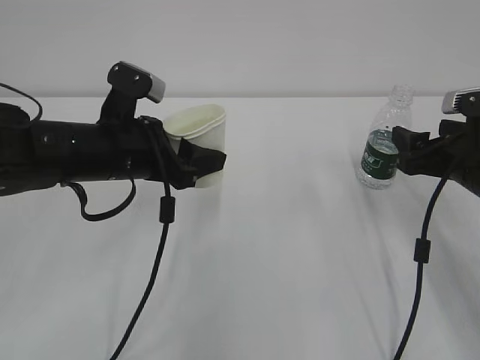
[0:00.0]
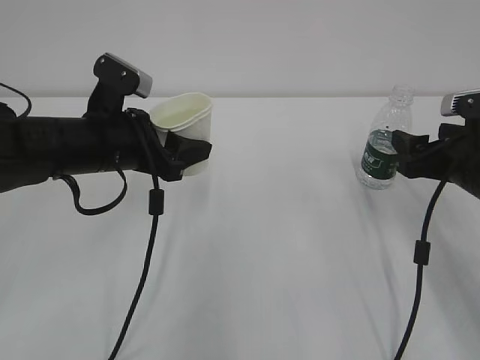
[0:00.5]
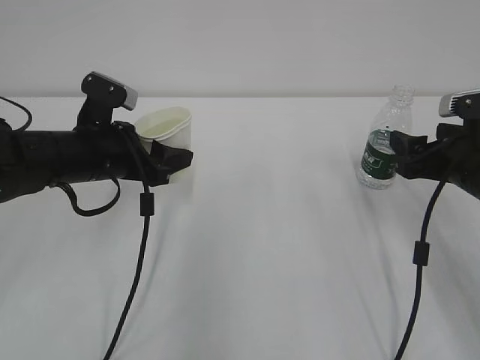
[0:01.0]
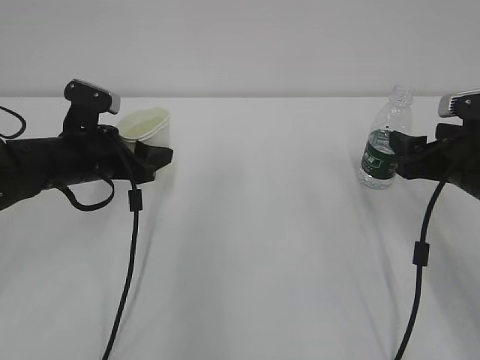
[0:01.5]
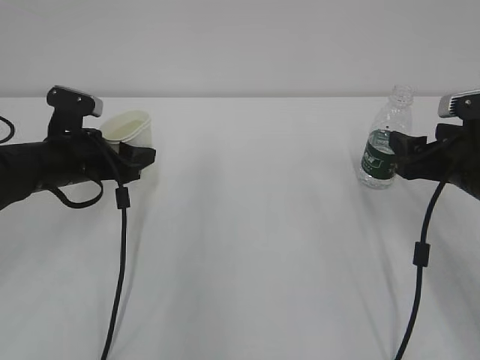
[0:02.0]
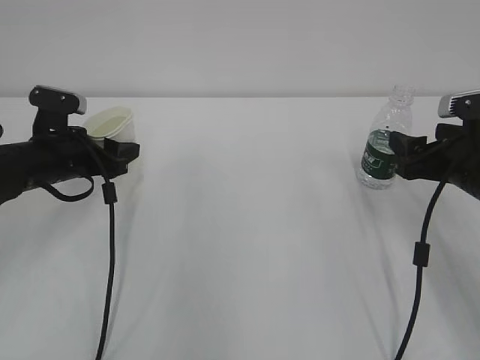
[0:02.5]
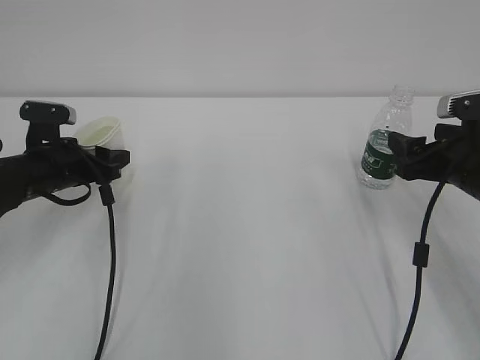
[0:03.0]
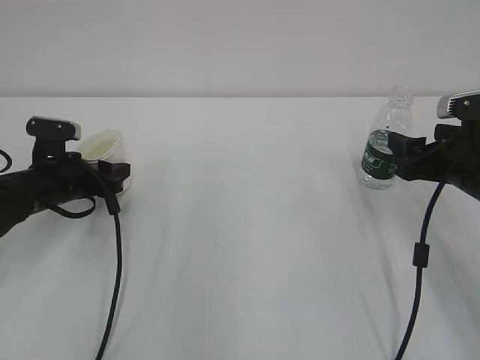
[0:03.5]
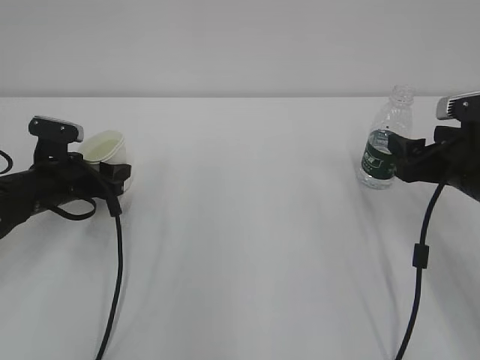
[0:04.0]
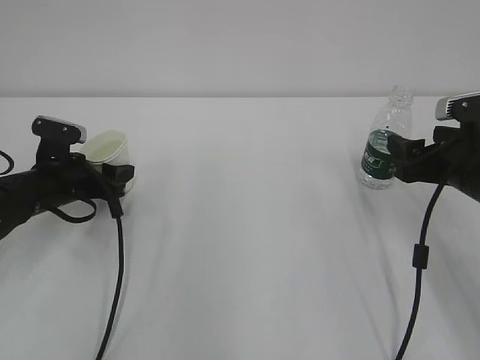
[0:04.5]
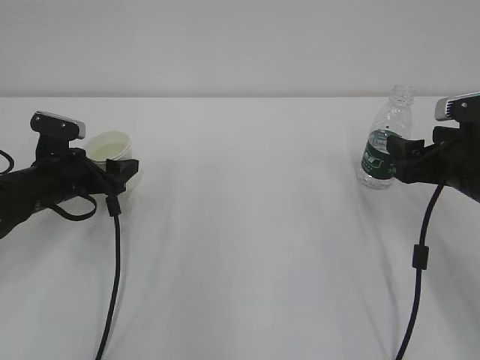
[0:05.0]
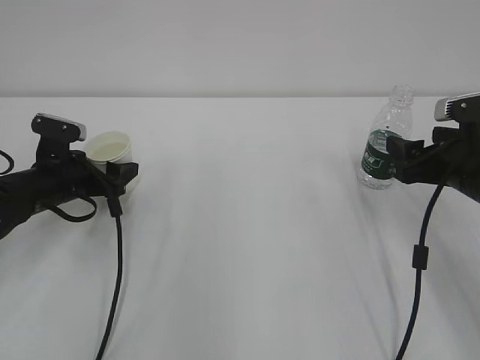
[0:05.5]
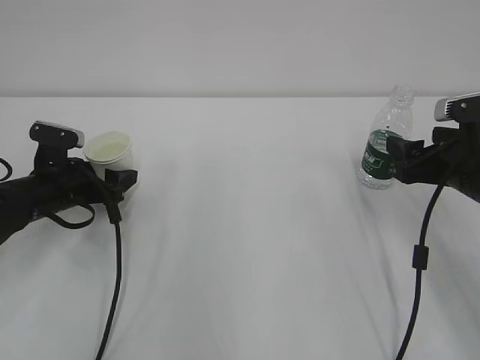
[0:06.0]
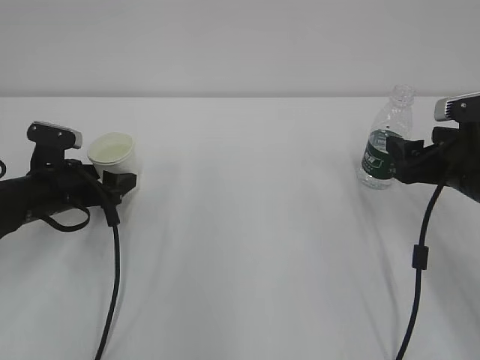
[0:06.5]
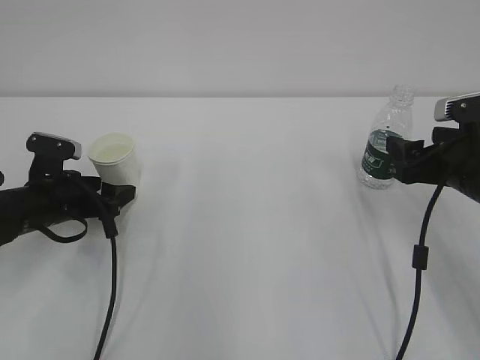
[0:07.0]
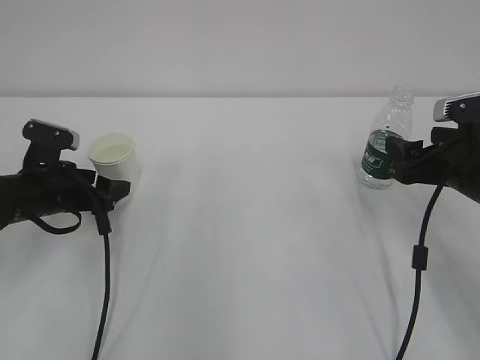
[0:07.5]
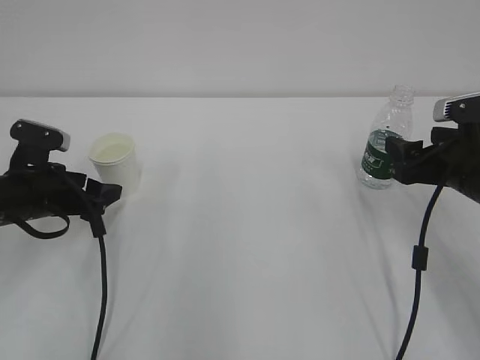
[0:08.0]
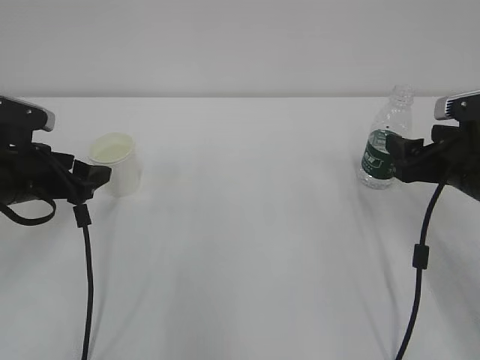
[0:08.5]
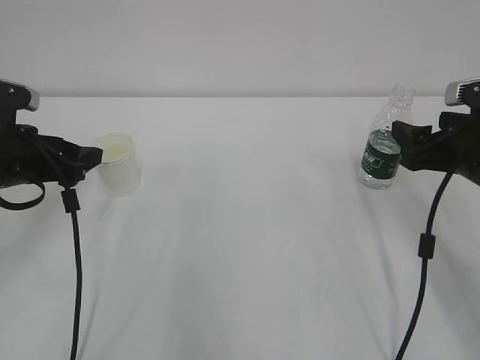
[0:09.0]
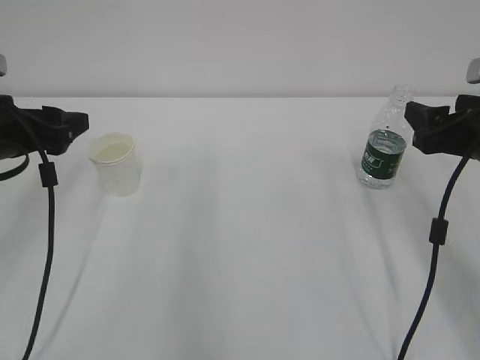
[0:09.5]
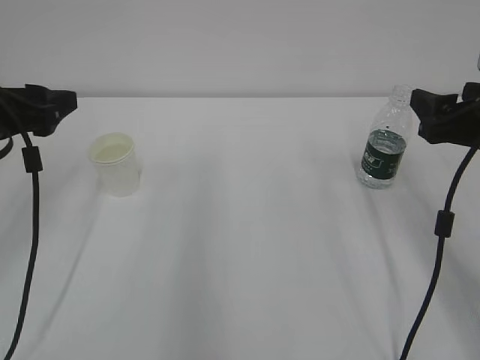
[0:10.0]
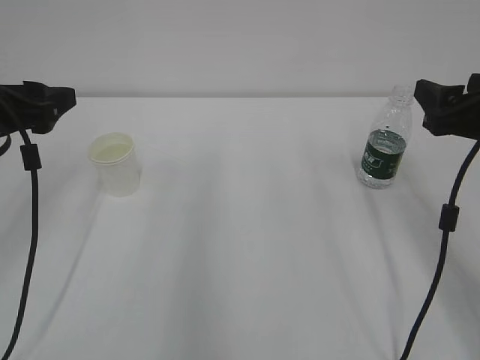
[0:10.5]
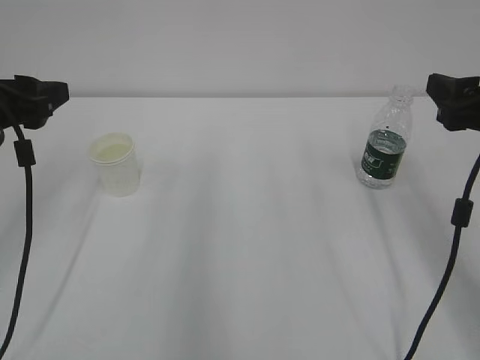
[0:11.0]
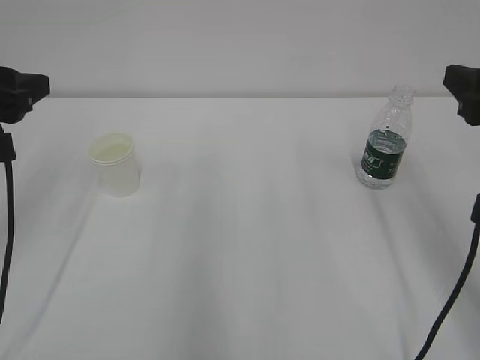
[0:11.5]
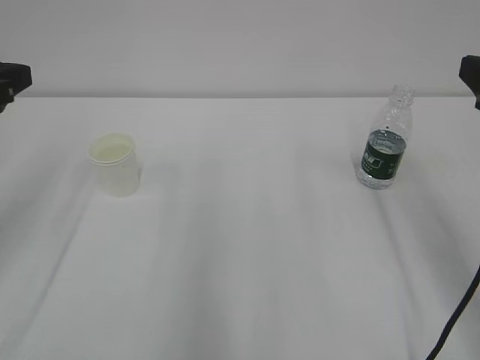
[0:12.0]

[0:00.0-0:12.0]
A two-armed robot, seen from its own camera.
0:00.0 to 0:02.0: The left gripper moves to the left, downward and forward, approximately 10 cm.
0:02.0 to 0:04.0: The left gripper goes roughly 5 cm downward.
0:04.0 to 0:06.0: The left gripper opens up.
0:06.0 to 0:08.0: The left gripper changes place by approximately 5 cm.
0:08.0 to 0:10.0: The left gripper moves upward, about 10 cm. The right gripper goes roughly 5 cm upward.
0:10.0 to 0:12.0: The right gripper moves upward and backward, about 10 cm; the left gripper heads upward, covering about 5 cm.

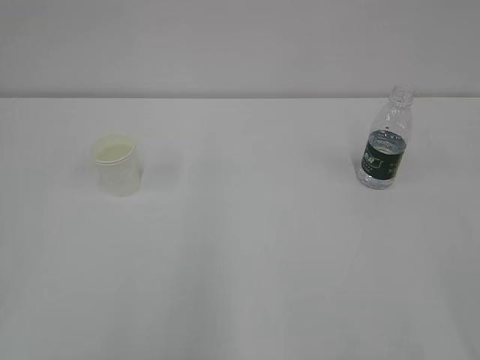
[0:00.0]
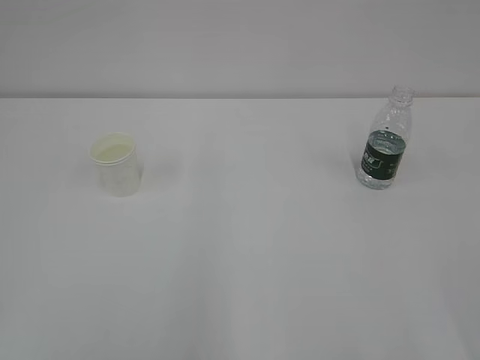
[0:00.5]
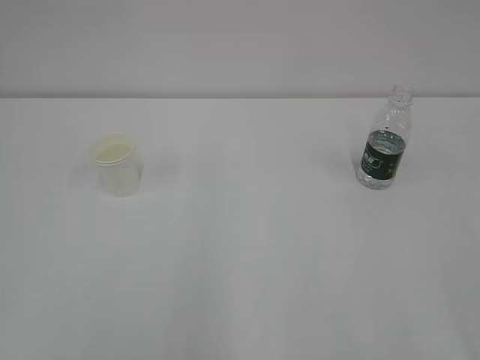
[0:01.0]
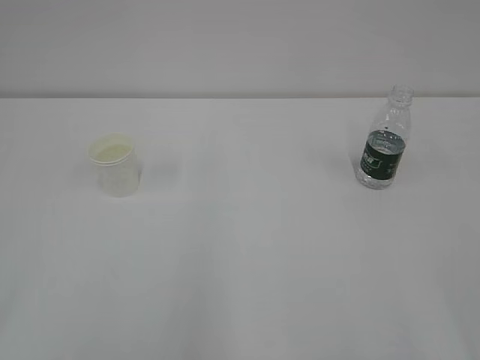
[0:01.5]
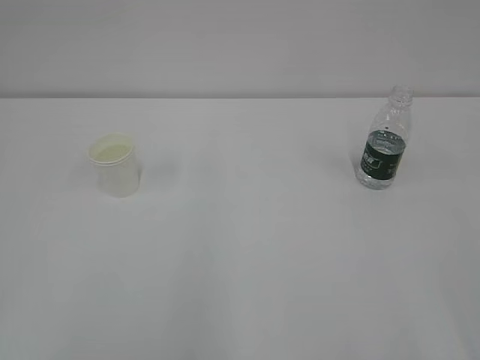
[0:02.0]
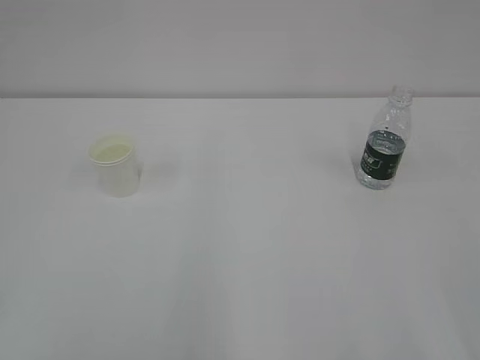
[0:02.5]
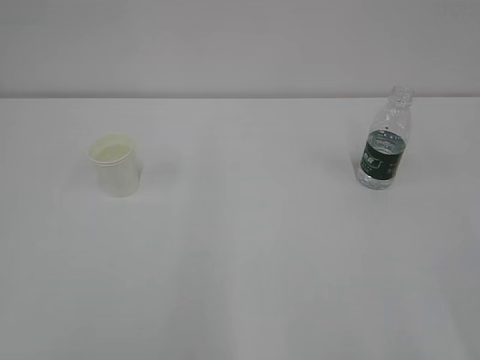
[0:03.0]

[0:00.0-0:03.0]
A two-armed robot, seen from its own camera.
0:01.5 to 0:03.0: Both grippers stay put.

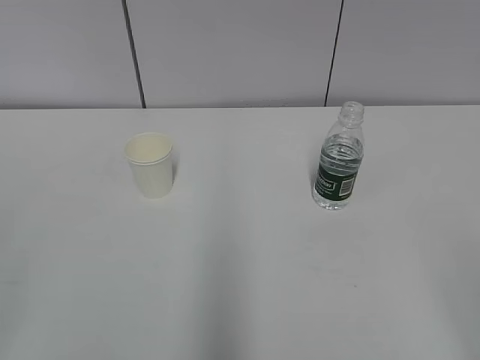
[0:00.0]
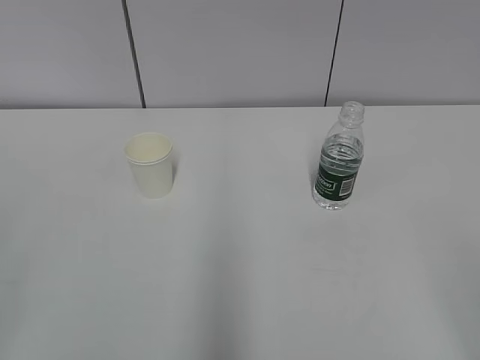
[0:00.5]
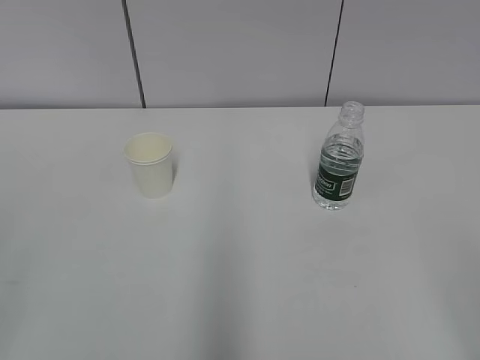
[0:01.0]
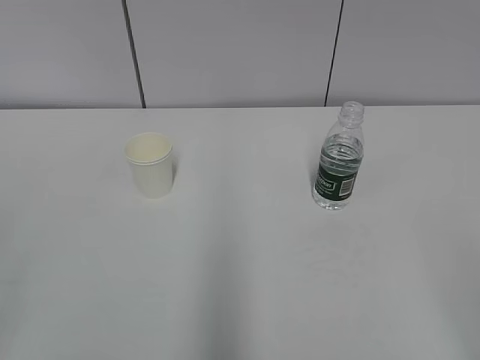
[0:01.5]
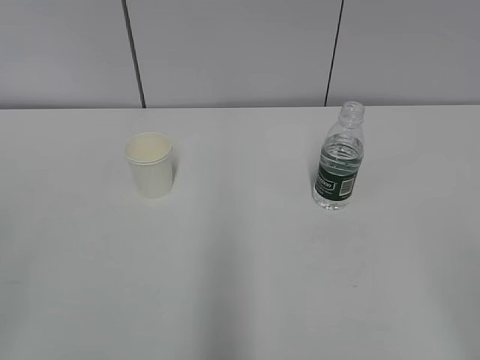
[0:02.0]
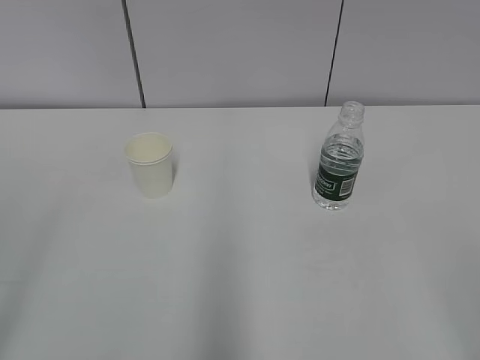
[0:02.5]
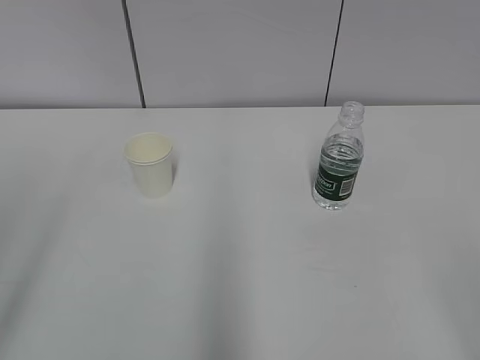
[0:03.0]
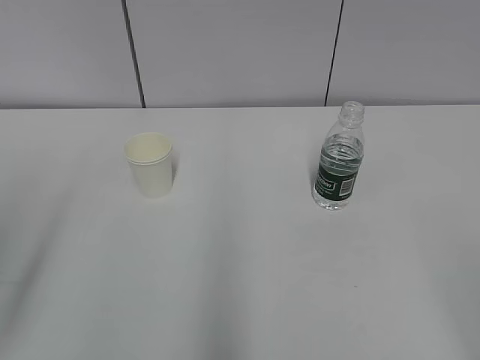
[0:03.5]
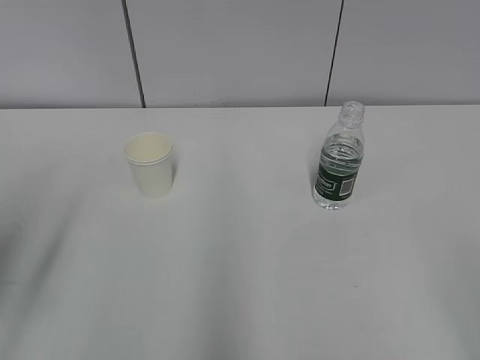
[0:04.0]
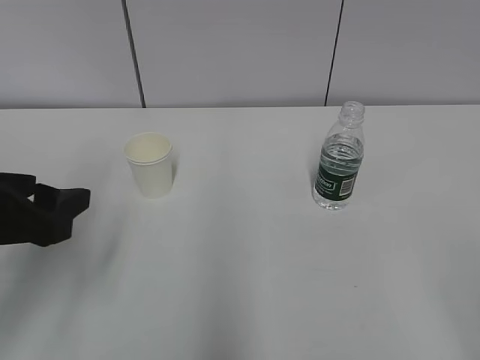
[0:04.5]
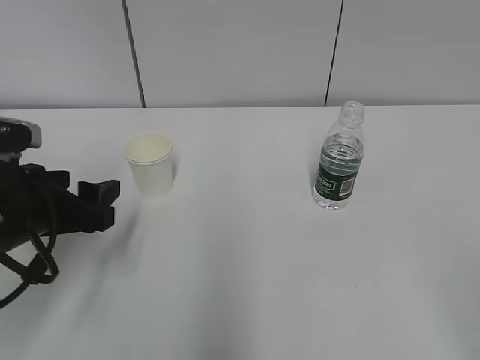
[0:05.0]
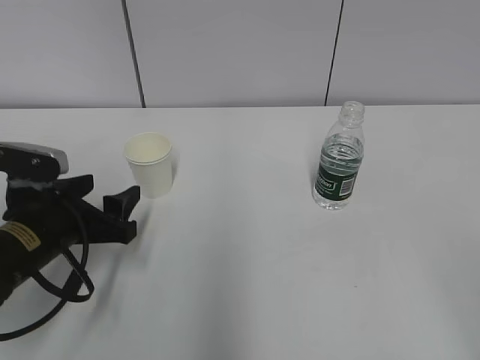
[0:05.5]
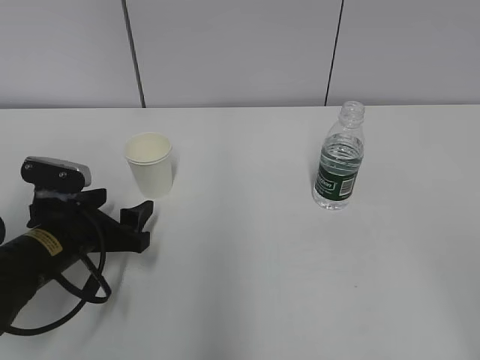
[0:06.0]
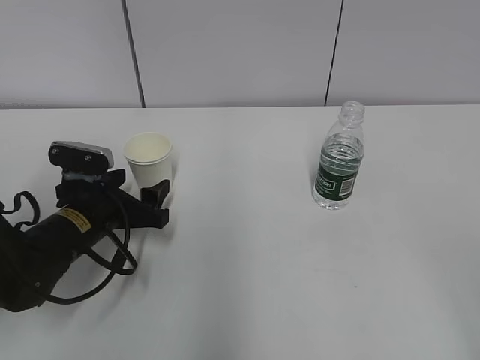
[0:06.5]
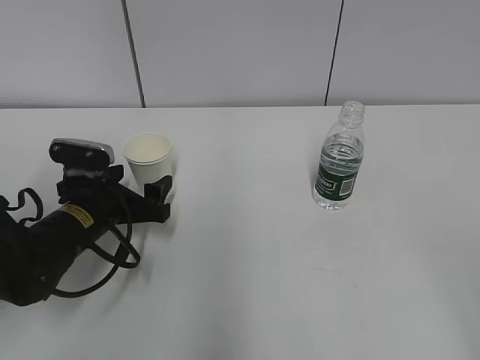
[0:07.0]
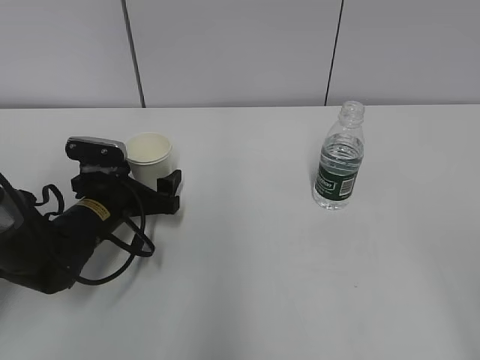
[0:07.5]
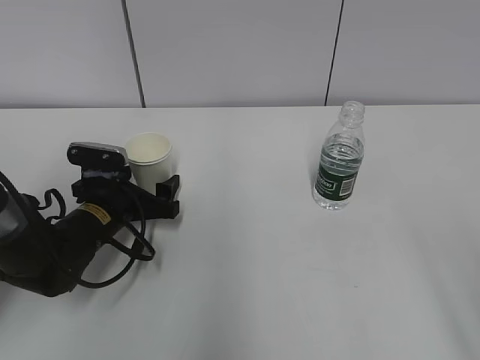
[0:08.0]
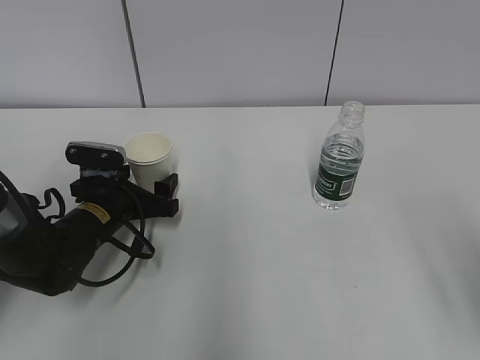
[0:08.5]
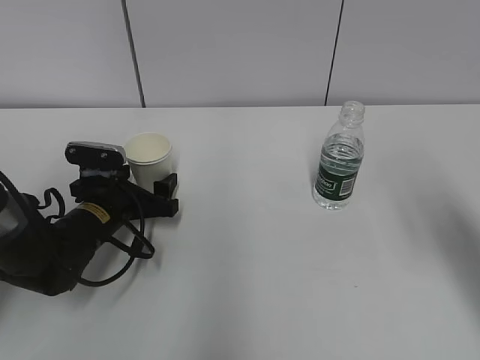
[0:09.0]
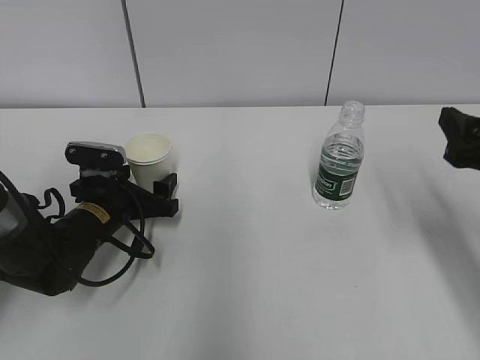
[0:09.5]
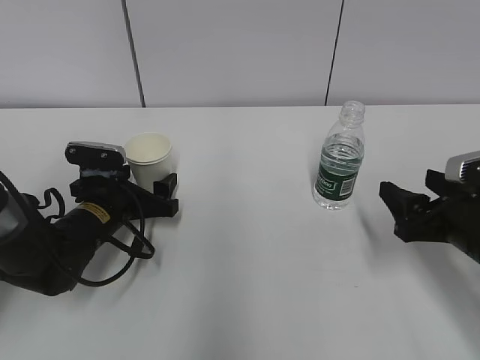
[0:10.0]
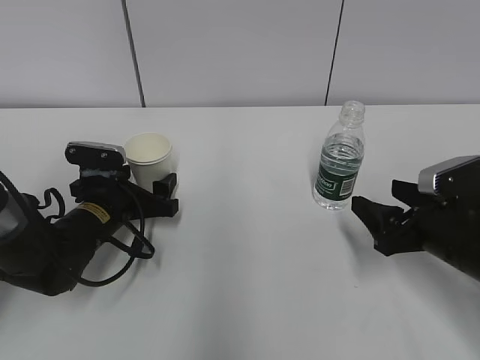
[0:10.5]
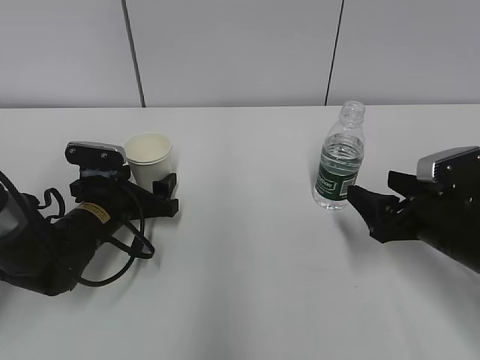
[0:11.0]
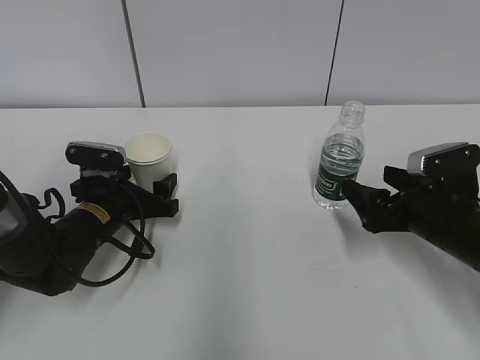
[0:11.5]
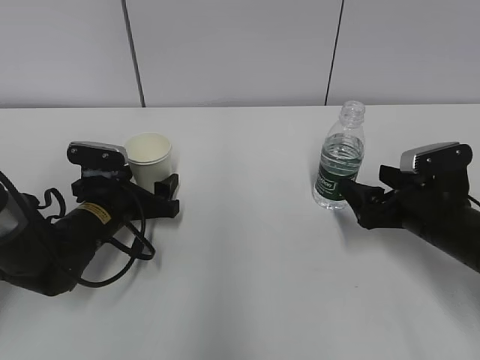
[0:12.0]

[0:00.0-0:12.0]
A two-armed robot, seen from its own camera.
0:02.0 to 0:04.0: The left gripper goes approximately 15 cm forward.
0:04.0 to 0:06.0: The left gripper heads downward, forward and to the right, covering about 25 cm.
0:06.0 to 0:08.0: The left gripper travels forward by some 5 cm.
0:08.0 to 0:10.0: The right gripper heads forward and downward, covering about 25 cm.
0:10.0 to 0:12.0: The right gripper moves forward, about 5 cm, and opens up.
